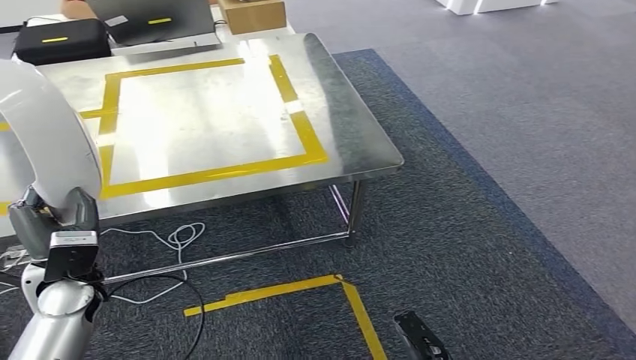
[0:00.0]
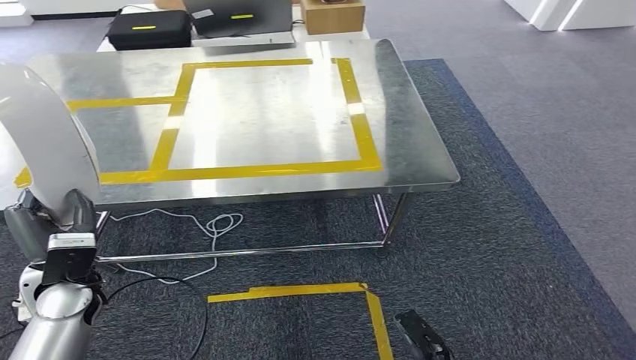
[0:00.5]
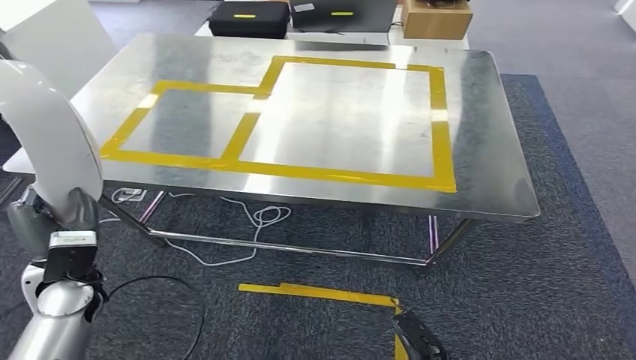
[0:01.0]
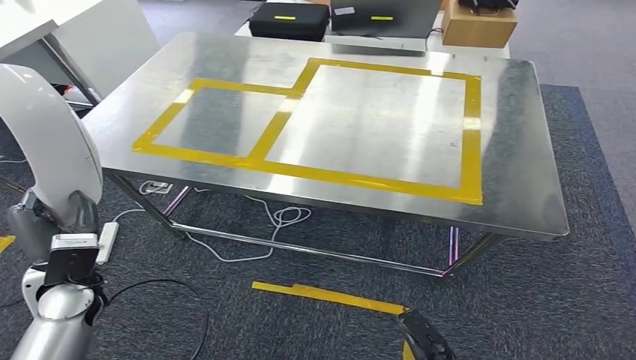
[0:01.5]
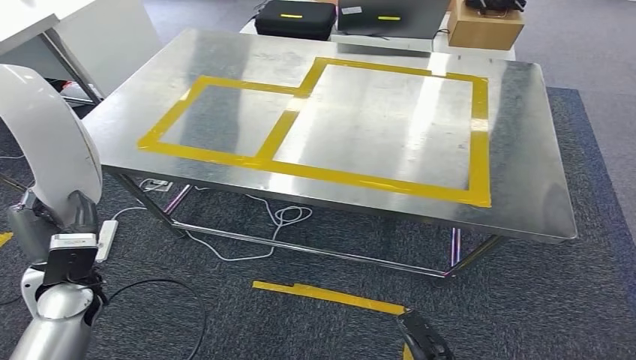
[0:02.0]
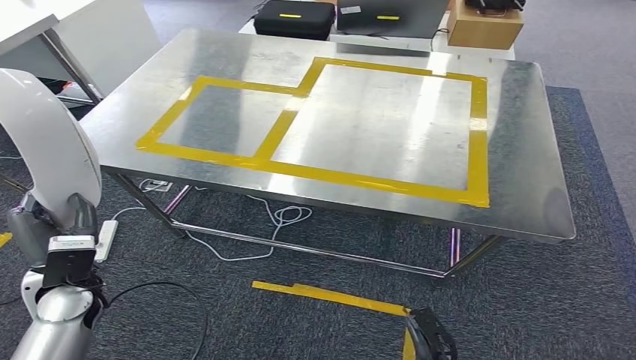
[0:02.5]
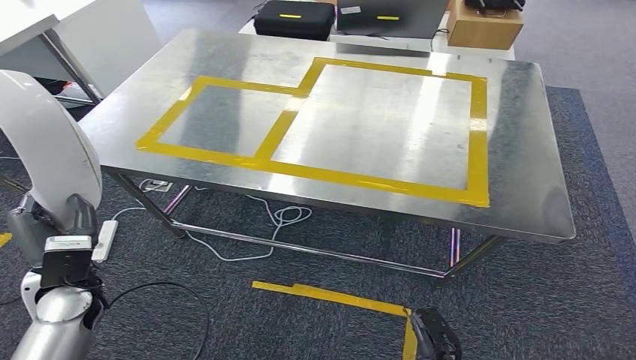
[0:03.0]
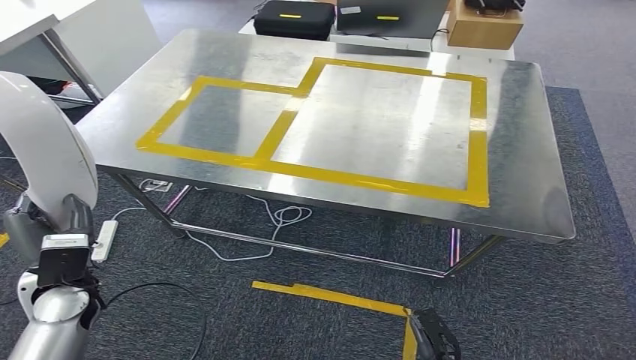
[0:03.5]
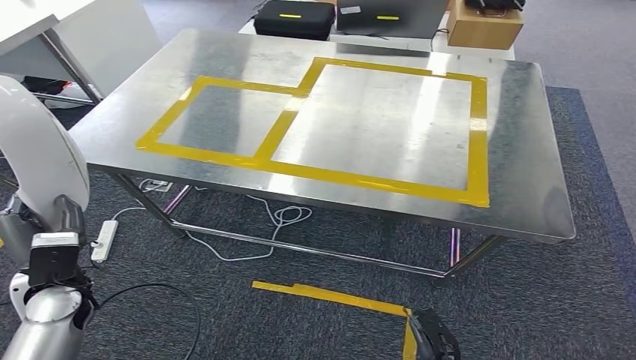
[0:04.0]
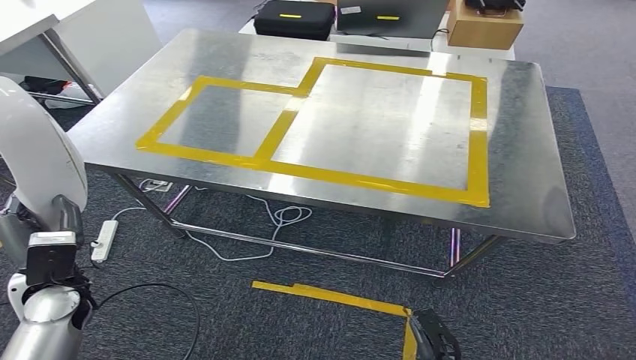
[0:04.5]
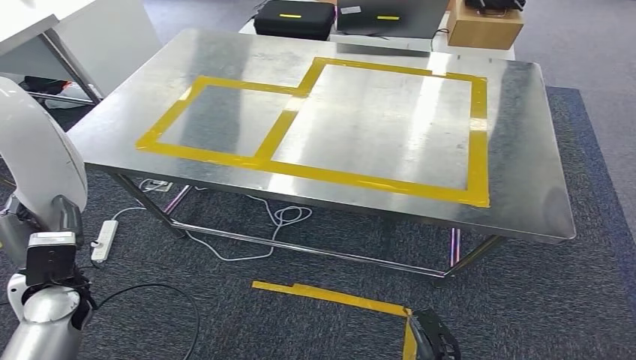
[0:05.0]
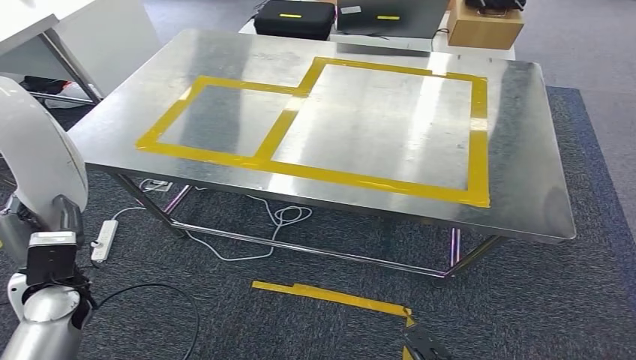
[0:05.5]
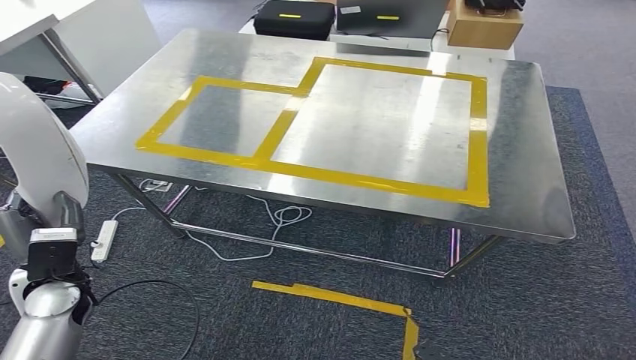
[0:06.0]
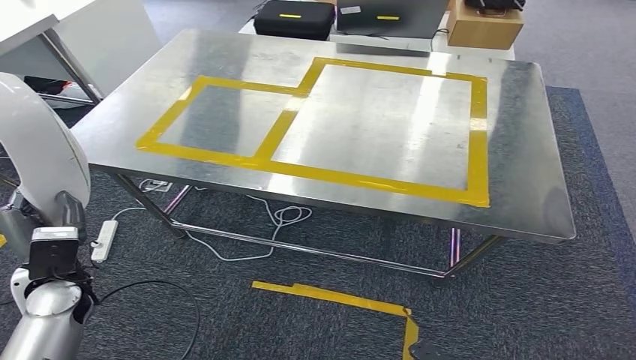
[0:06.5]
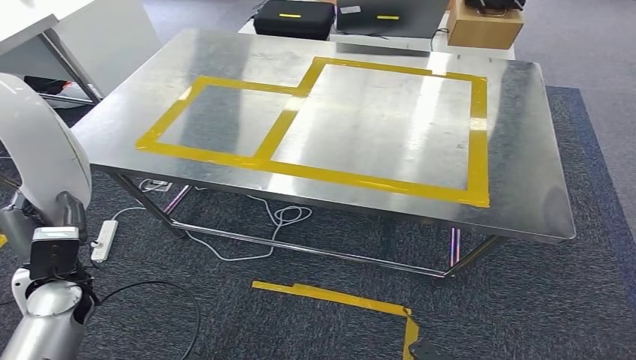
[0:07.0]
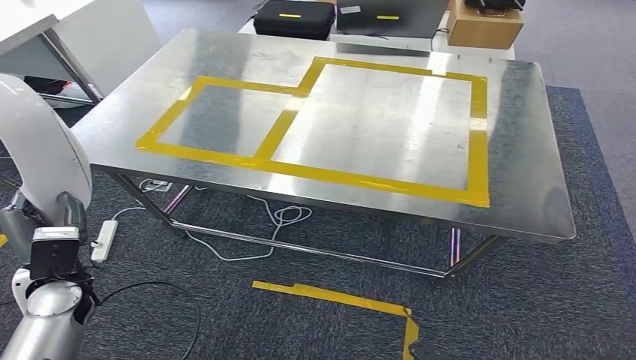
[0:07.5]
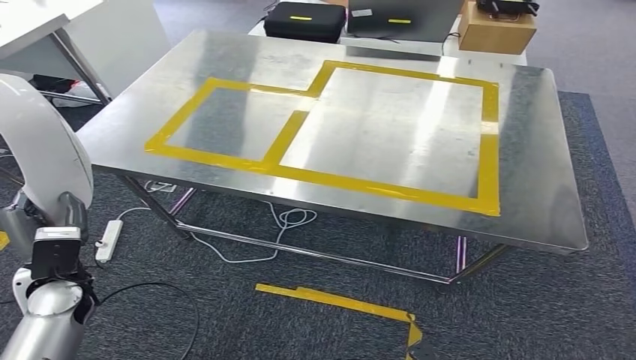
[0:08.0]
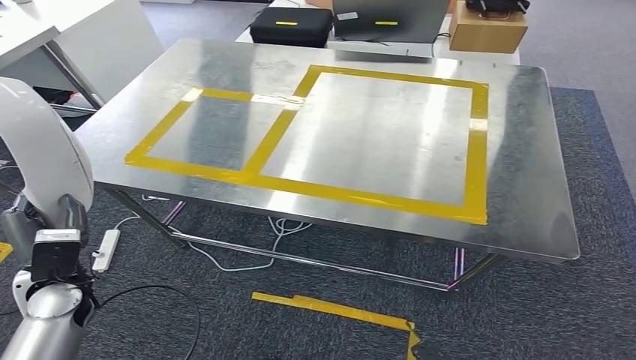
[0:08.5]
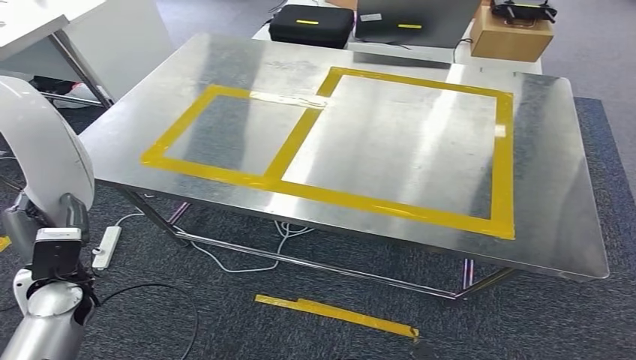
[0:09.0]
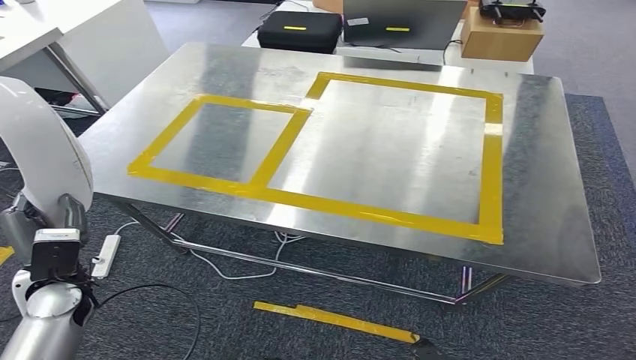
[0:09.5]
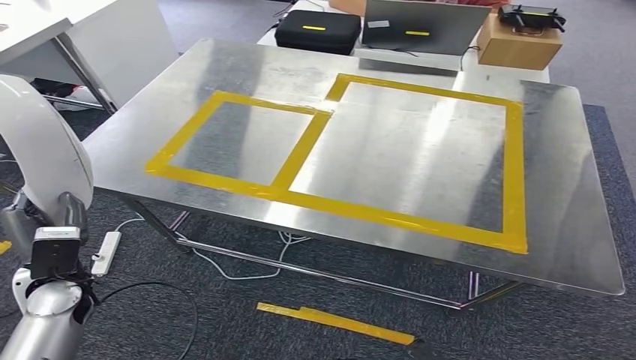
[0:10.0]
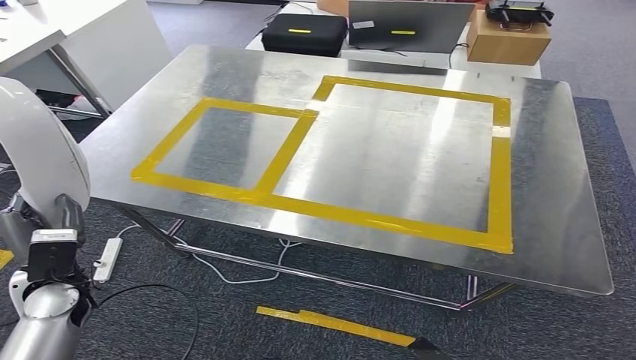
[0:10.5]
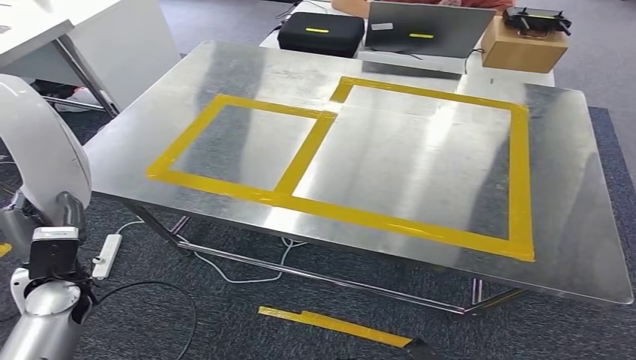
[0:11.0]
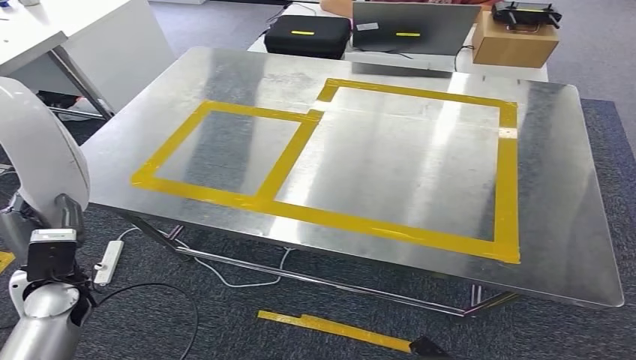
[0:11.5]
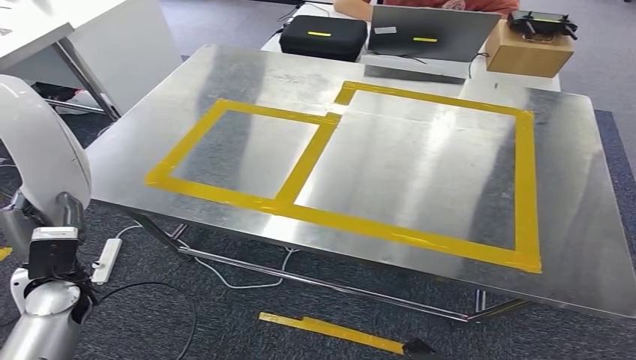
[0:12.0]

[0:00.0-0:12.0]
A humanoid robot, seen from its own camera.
Step, 0:00.0 to 0:05.5: Move the small parts to the workbench.
0:02.0 to 0:04.0: The hands stay close to where they were, moving slightly.
0:06.0 to 0:08.0: Both hands stay put.

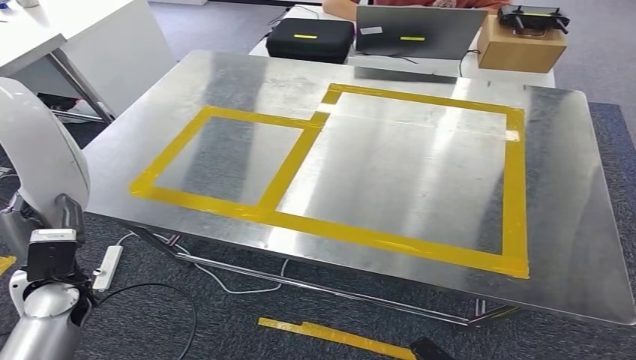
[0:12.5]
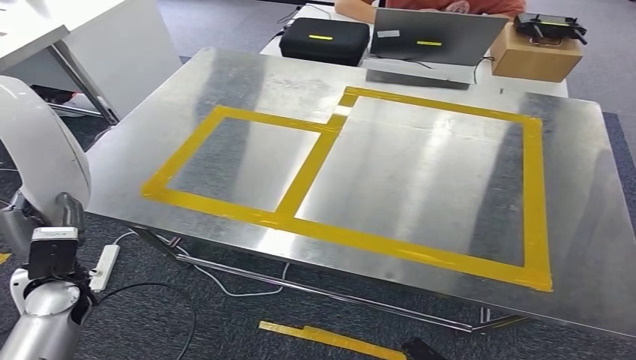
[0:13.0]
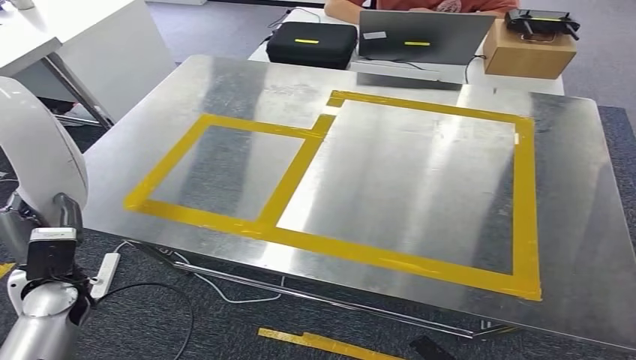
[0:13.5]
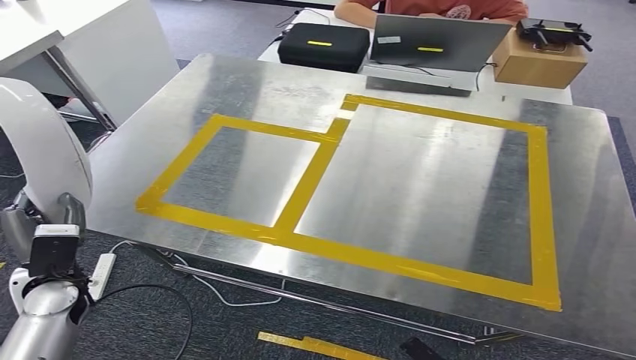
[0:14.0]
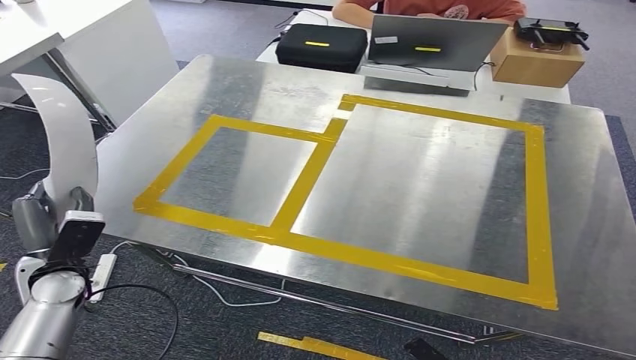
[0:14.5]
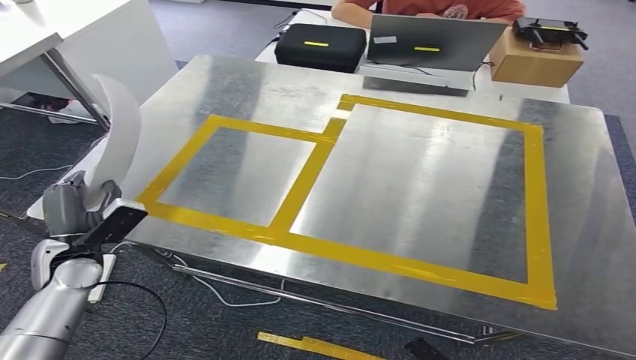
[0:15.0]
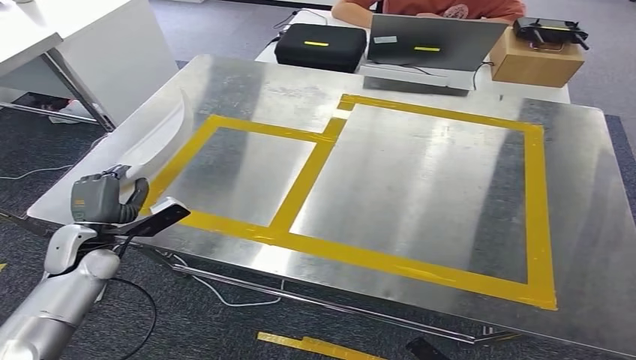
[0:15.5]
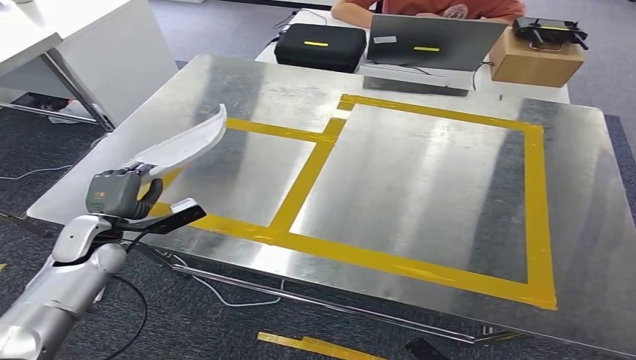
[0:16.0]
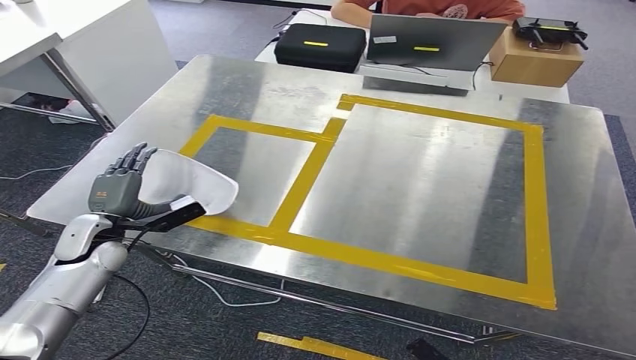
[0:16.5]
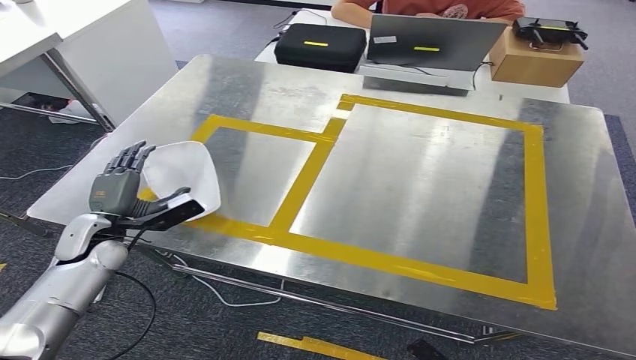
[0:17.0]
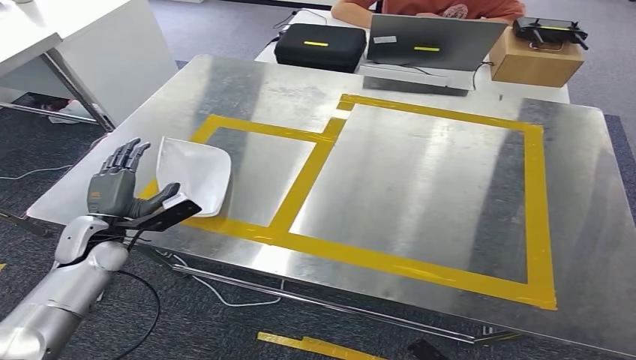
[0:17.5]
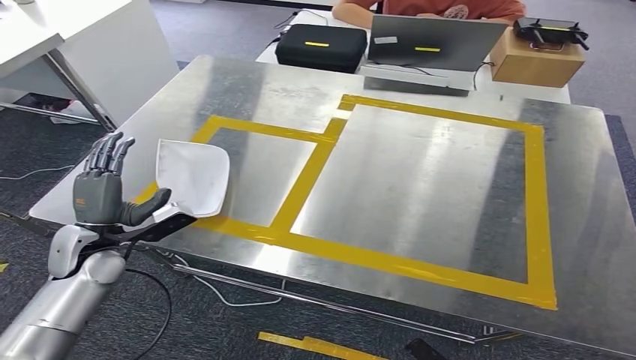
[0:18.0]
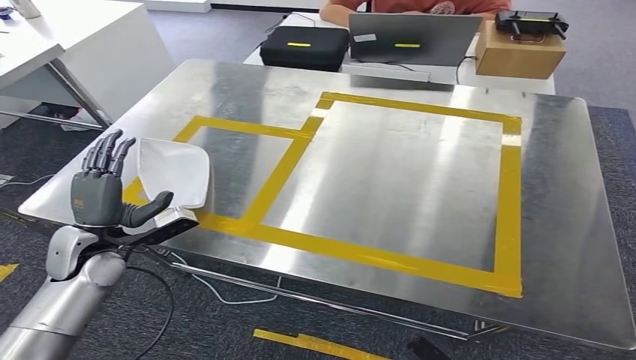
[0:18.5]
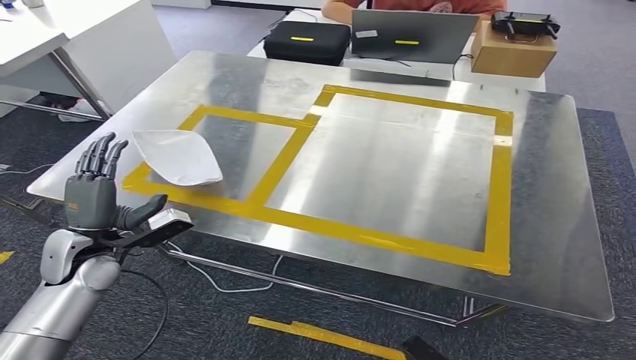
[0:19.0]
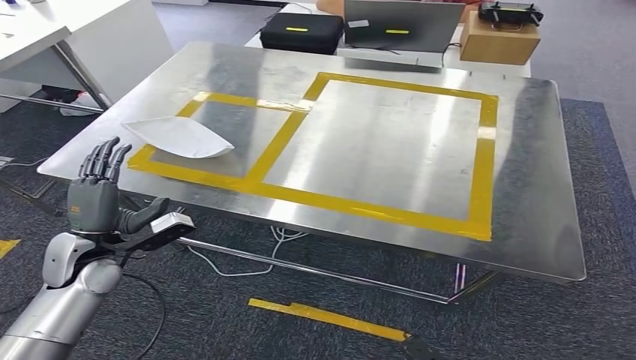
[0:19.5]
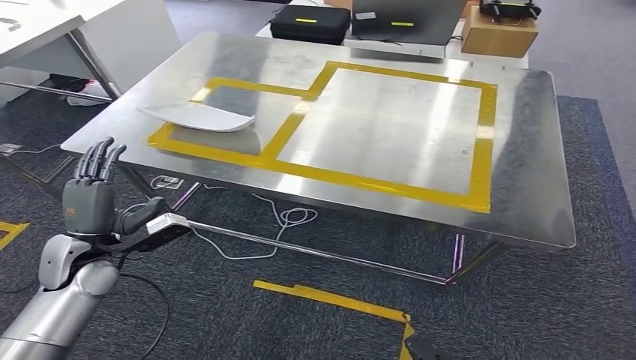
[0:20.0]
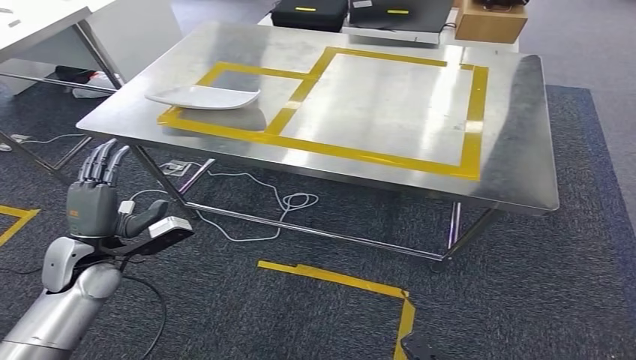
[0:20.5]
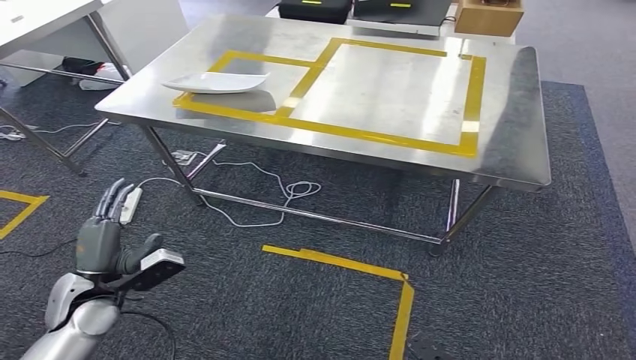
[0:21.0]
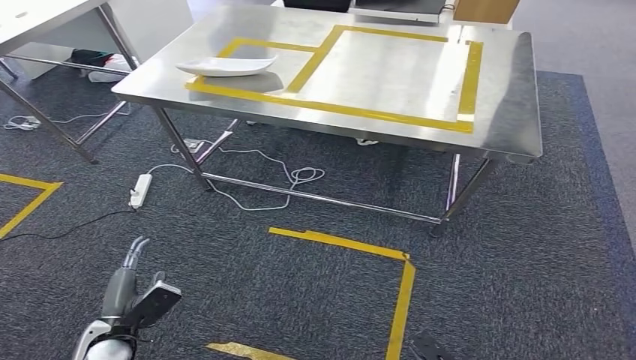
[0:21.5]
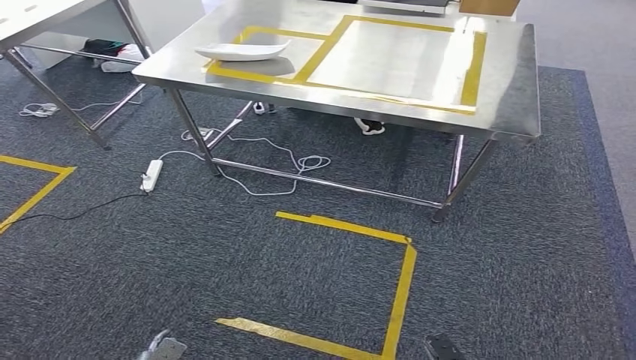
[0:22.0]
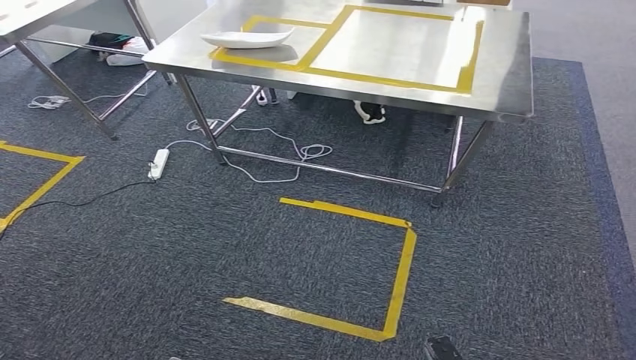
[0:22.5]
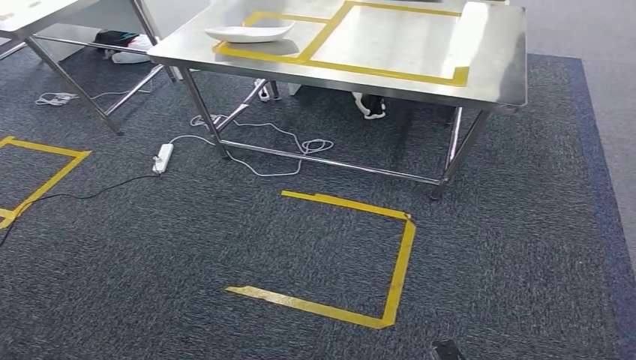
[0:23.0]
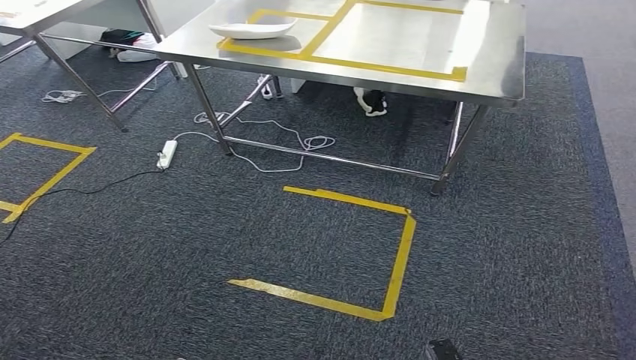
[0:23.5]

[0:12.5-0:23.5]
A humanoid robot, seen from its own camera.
Step, 0:12.5 to 0:17.5: Insert the small parts into the corresponding holes on the workbench.
0:14.5 to 0:16.0: The left hand travels forward by some 5 cm.
0:16.0 to 0:18.0: The hands move only a little.
